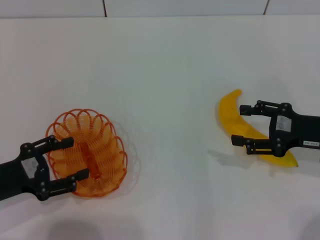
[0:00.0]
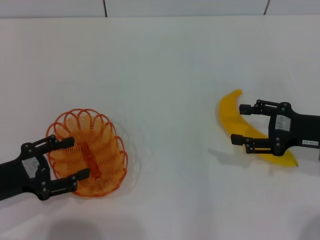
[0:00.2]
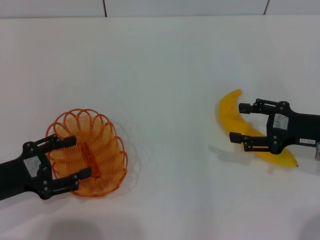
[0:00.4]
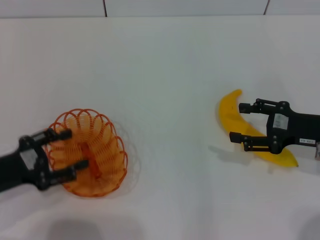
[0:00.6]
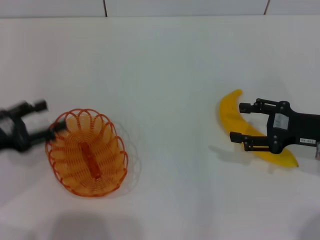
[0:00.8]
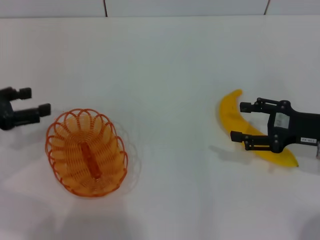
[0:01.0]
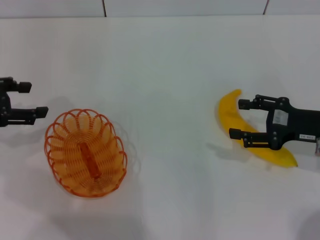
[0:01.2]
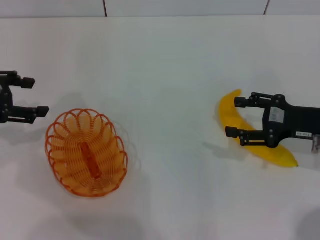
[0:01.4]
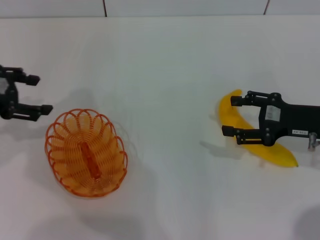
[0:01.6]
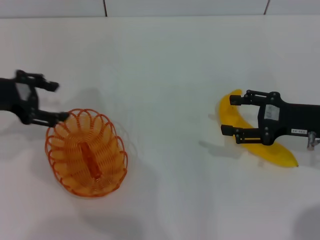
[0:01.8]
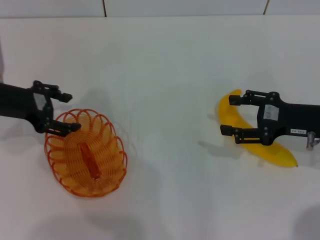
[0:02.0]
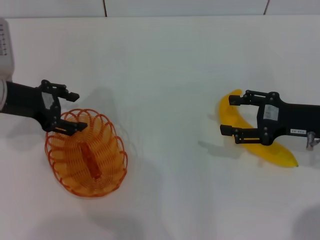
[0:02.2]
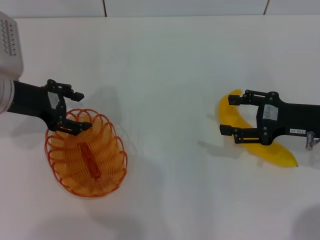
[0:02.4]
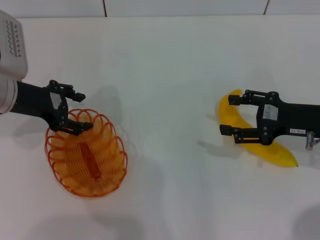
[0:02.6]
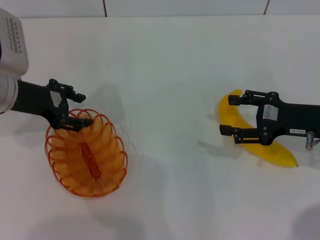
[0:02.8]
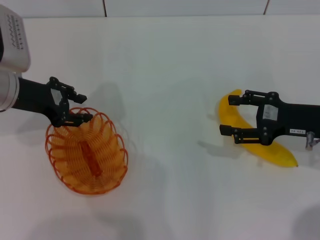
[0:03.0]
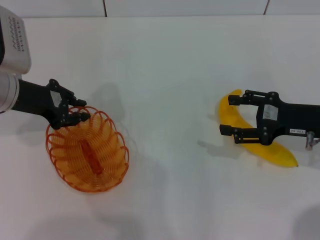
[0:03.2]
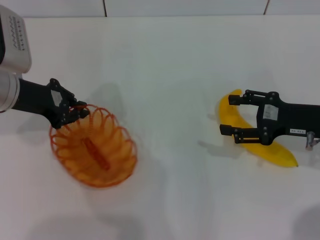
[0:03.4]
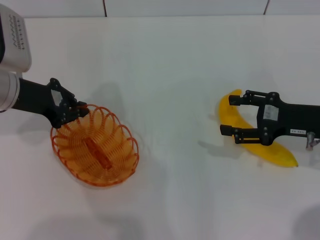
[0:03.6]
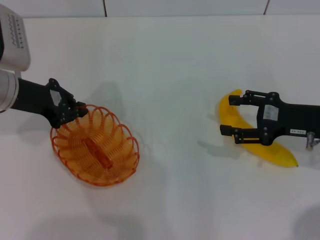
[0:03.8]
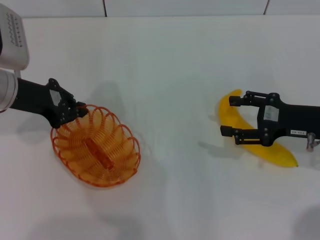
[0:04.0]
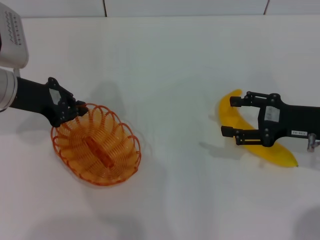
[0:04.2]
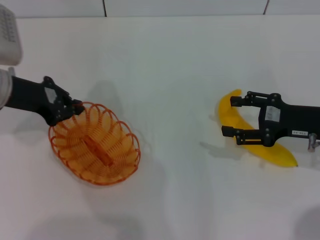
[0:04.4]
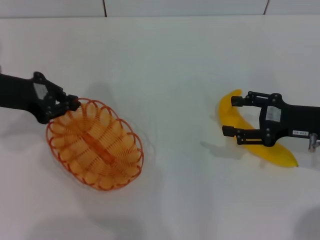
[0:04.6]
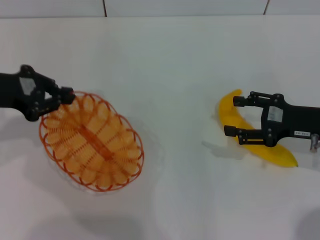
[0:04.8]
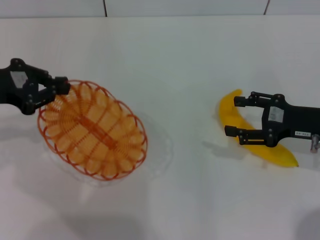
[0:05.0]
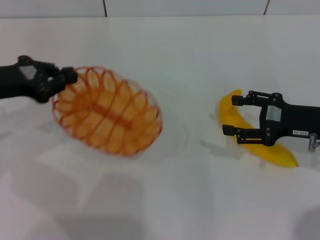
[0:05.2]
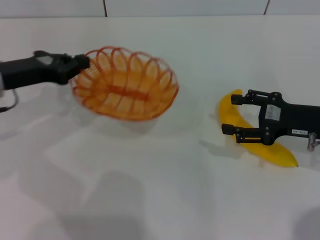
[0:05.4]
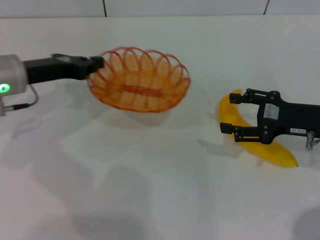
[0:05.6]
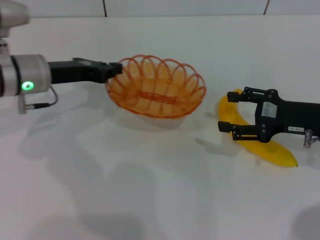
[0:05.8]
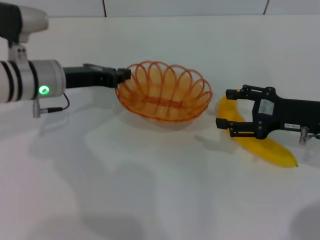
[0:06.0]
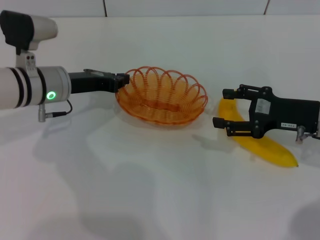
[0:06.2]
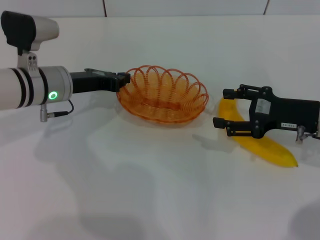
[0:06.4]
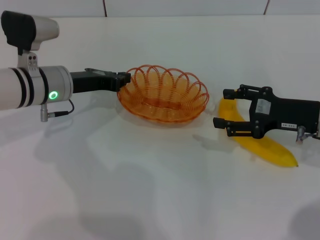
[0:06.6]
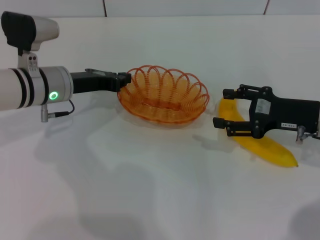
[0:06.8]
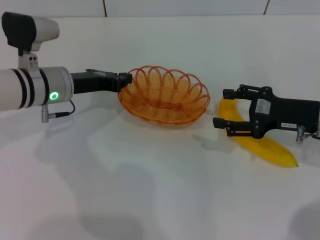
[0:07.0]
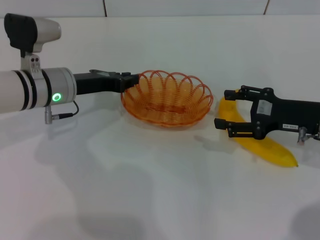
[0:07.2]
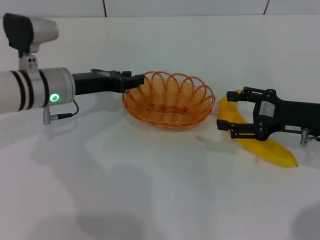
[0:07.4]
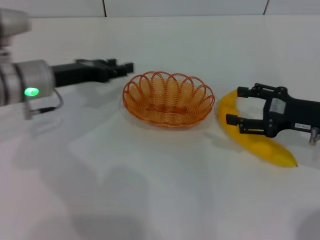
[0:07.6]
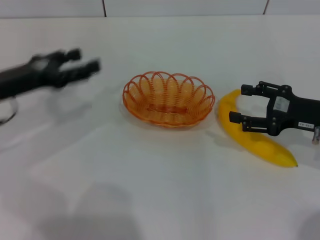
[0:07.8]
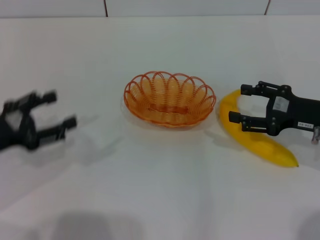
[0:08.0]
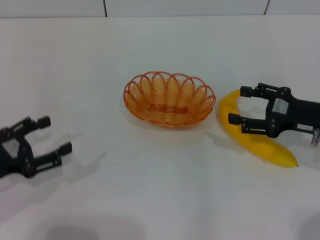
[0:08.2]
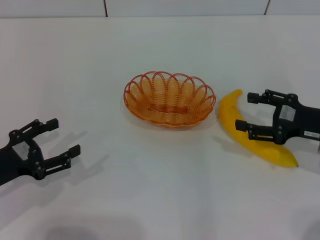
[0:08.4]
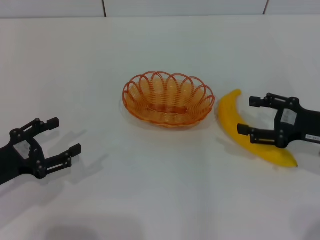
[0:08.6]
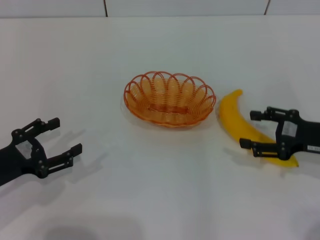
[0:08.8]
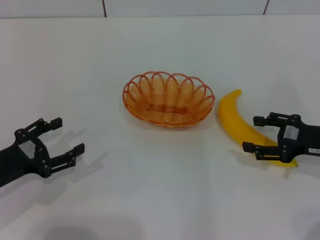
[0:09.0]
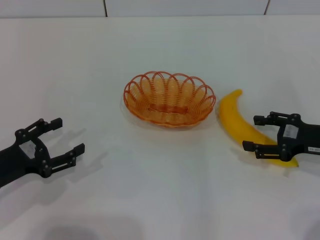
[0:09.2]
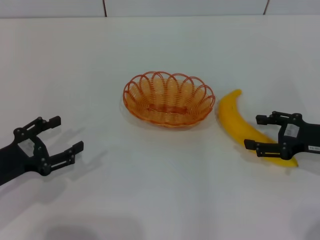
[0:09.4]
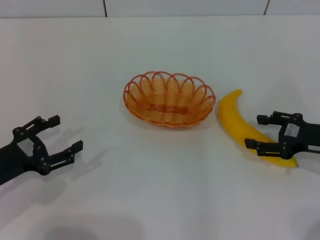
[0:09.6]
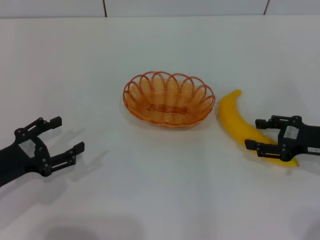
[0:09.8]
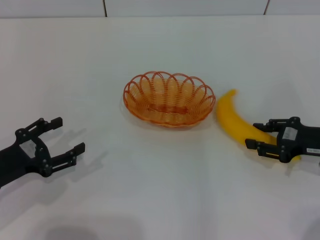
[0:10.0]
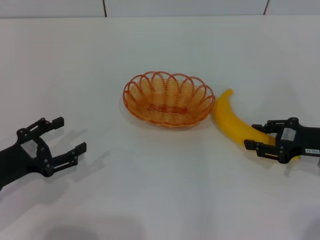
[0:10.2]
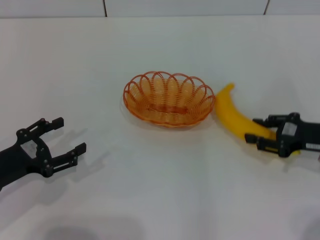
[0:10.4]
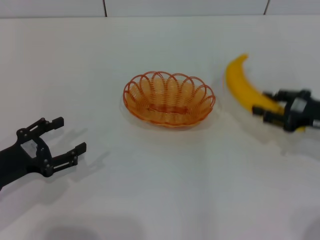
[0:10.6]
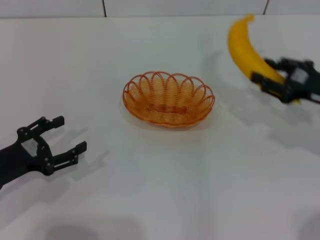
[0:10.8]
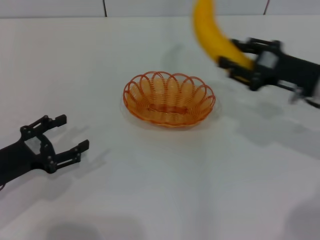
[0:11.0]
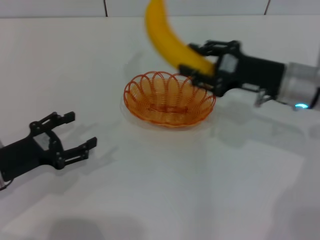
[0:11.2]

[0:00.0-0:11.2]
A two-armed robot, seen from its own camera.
Step, 0.0 to 5.2 s: Pick up the basket with the left gripper.
Step, 5.4 to 7.8 s: Place the basket in the center of view with the left gripper.
Step, 8.0 to 10.8 s: Pick up the banana with the right gripper.
0.0 to 1.6 s: The left gripper heads upward and forward, covering some 15 cm.
1.6 to 3.2 s: The left gripper goes about 5 cm to the right.
3.2 to 4.8 s: The left gripper changes place by roughly 5 cm, and closes.
4.8 to 6.4 s: The left gripper shifts some 15 cm to the right and downward.
6.4 to 8.0 s: The left gripper moves to the left and backward, roughly 20 cm, and opens.
8.0 to 9.6 s: The left gripper changes place by some 5 cm.
9.6 to 11.2 s: The right gripper moves to the left and forward, roughly 10 cm, and closes up.

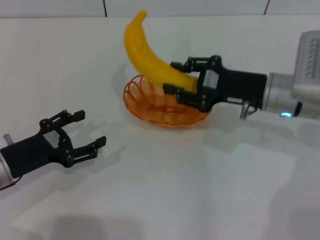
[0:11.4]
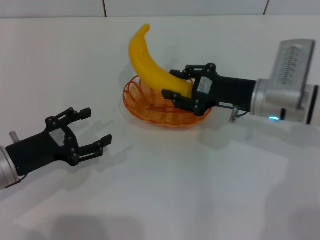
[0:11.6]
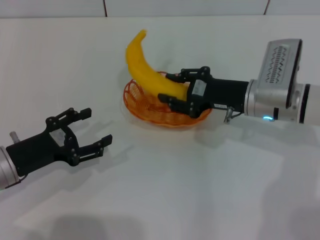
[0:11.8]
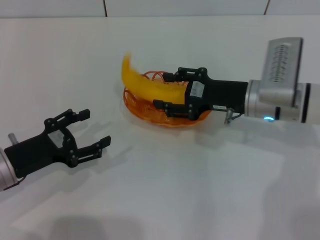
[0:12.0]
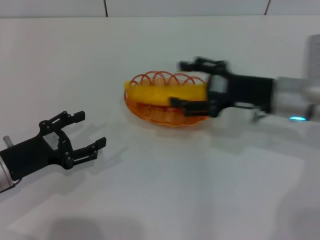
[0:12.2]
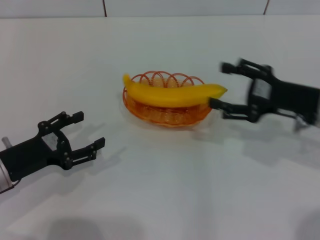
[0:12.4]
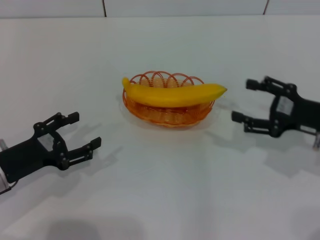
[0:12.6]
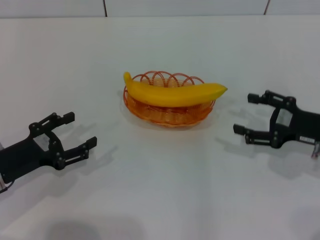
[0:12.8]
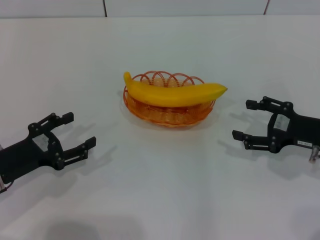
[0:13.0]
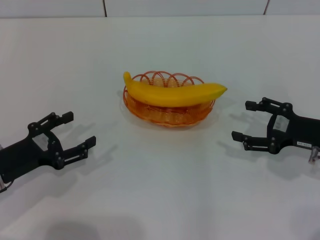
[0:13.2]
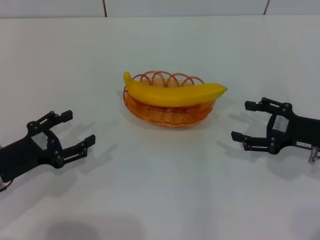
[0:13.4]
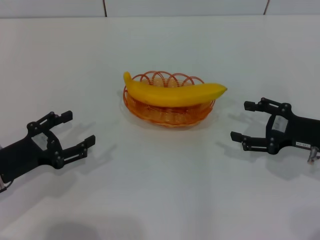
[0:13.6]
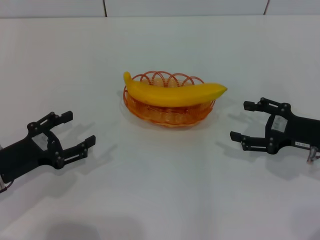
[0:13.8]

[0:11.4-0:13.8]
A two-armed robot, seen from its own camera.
Step, 11.4 to 12.4 s: Place the banana into the basket with the right gripper.
11.4 to 12.6 s: The right gripper heads to the right and backward, covering about 10 cm, and opens up.
12.6 to 13.8 s: The grippers stay close to where they were, moving slightly.

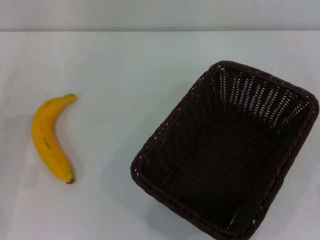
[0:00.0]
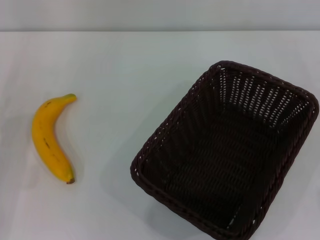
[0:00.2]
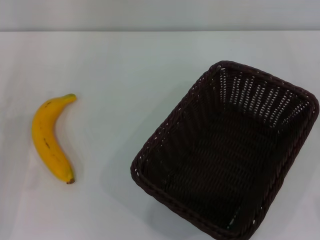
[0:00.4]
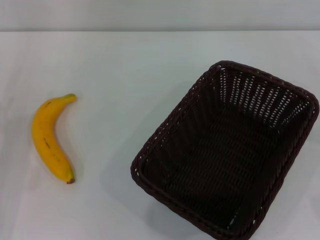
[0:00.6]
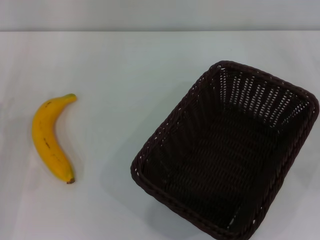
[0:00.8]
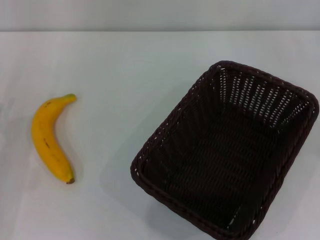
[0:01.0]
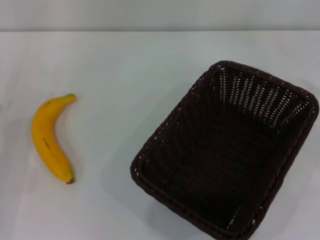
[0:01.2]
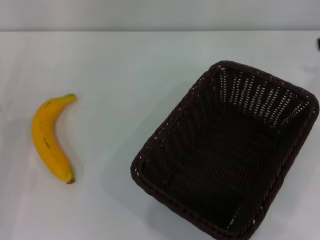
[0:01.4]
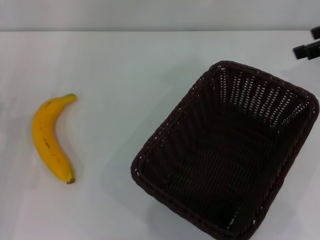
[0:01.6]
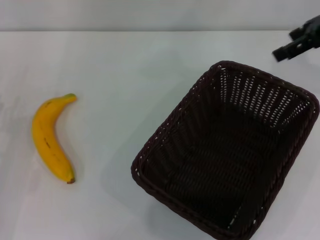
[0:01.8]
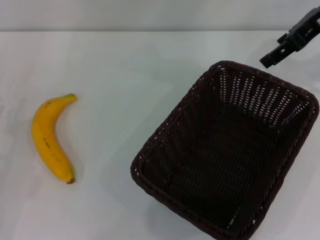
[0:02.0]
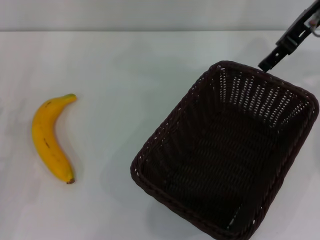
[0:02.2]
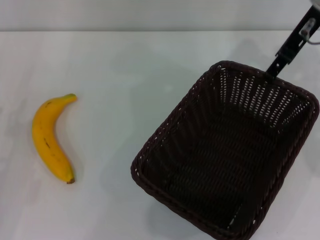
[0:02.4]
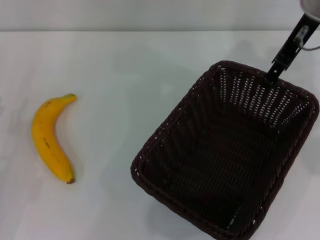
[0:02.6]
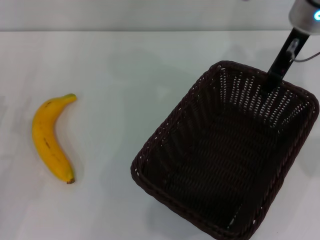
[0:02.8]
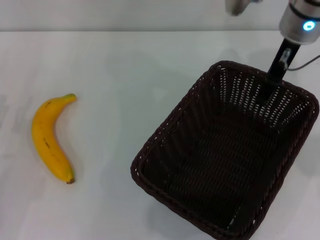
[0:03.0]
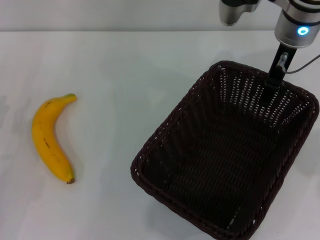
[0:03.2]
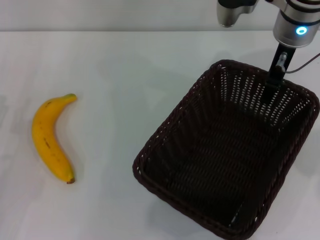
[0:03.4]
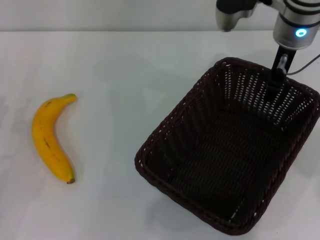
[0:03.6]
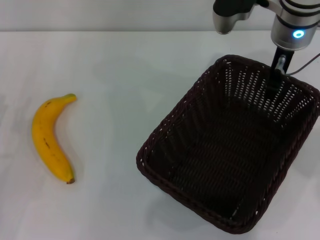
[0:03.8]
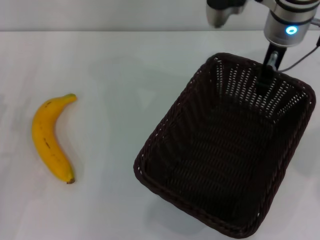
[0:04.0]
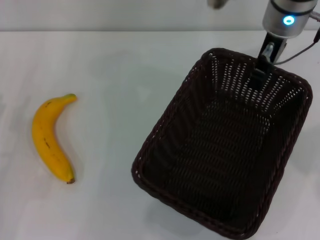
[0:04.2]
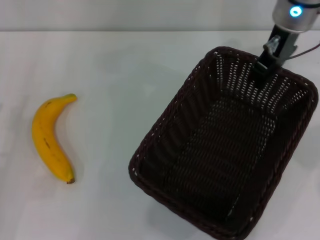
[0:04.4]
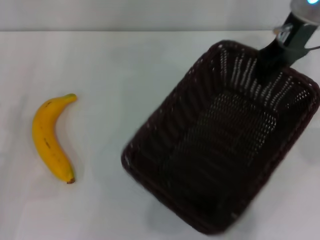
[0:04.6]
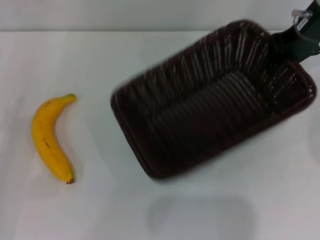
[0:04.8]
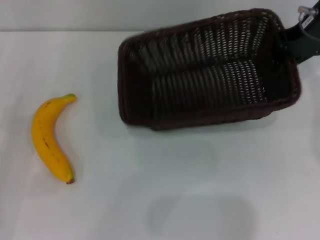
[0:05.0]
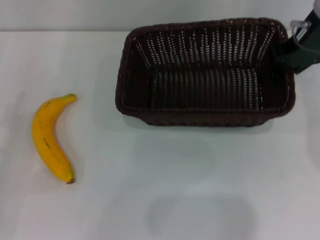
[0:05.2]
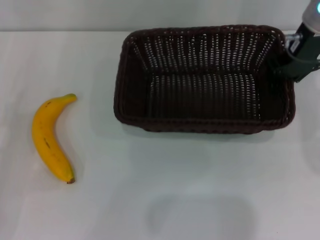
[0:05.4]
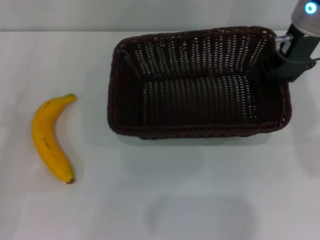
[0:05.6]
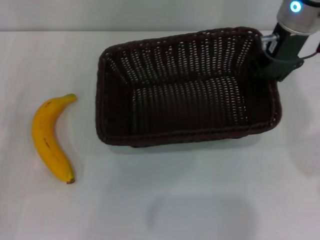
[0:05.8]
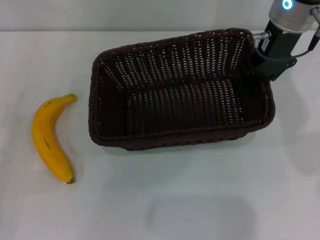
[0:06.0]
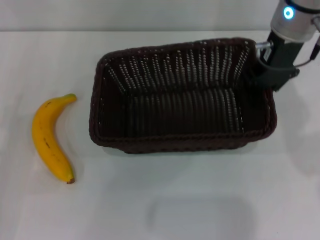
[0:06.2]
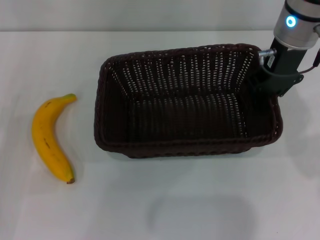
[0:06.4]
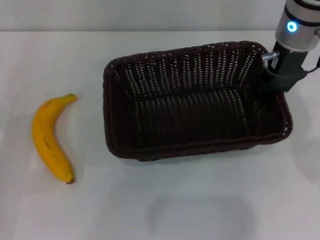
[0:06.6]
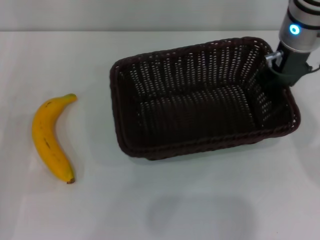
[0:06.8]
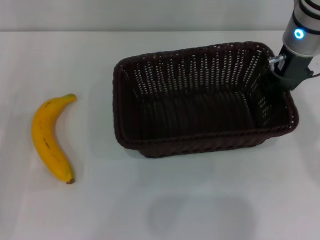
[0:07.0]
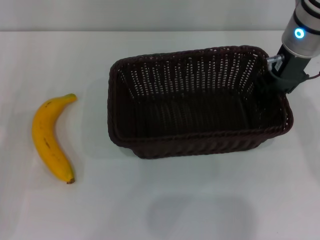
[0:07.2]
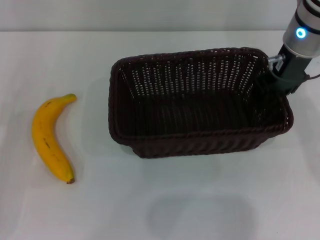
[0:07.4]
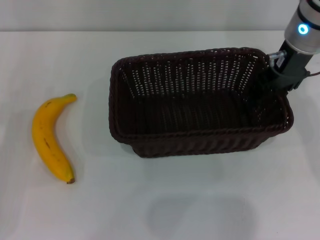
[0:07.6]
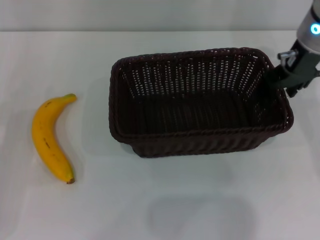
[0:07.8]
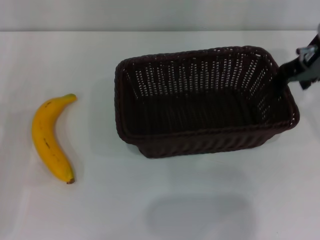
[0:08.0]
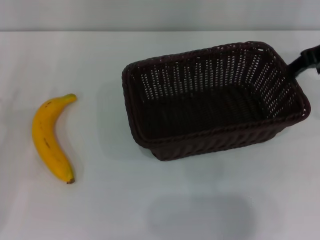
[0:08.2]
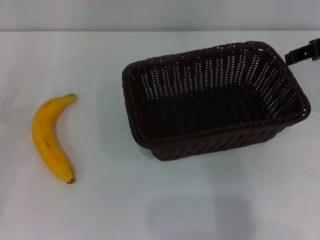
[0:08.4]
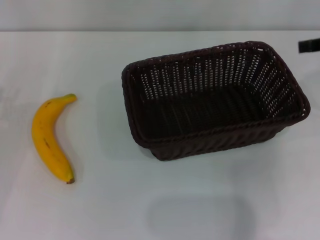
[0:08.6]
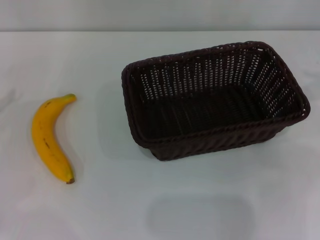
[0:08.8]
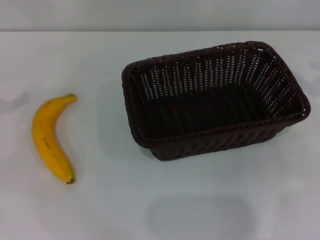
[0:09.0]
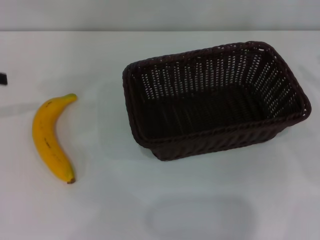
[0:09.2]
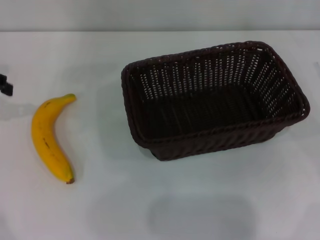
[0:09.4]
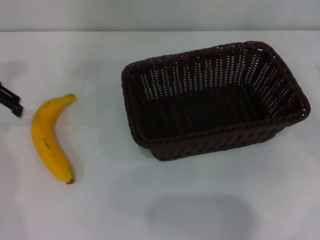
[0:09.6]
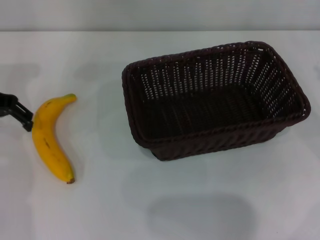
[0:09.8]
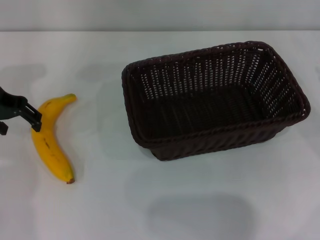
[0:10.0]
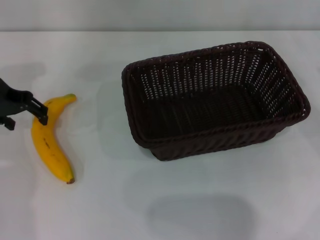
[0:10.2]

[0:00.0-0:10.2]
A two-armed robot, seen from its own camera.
Step, 0.0 to 4.6 s: Pick up the dark basket with the right gripper.
Step, 4.8 to 8.4 s: Place the dark basket in the center of view with the right gripper.
1.4 to 3.0 s: The right gripper is displaced to the left and forward by some 20 cm.
3.0 to 4.4 s: The right gripper closes its fingers.
4.4 to 5.8 s: The right gripper reaches approximately 10 cm to the right, then returns.
5.8 to 7.2 s: There are only small adjustments of the grippers.
7.2 to 8.8 s: The right gripper heads to the right and backward, covering some 20 cm, and opens its fingers, while the left gripper shifts some 10 cm upward and forward.
8.8 to 10.2 s: The left gripper moves to the right and forward, roughly 15 cm.
